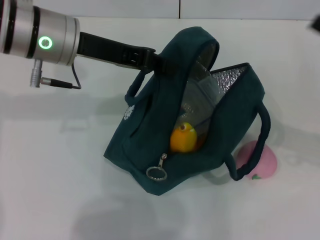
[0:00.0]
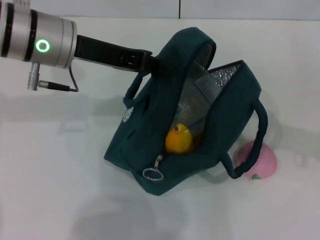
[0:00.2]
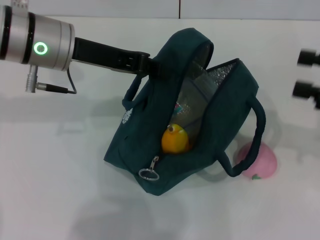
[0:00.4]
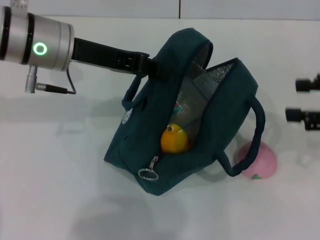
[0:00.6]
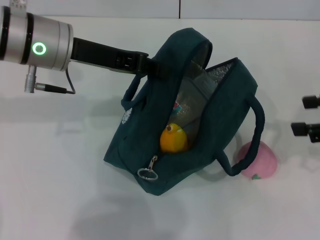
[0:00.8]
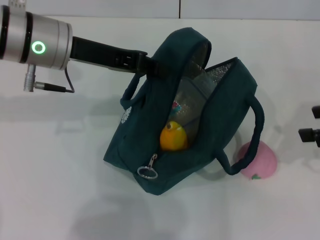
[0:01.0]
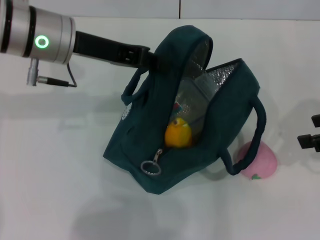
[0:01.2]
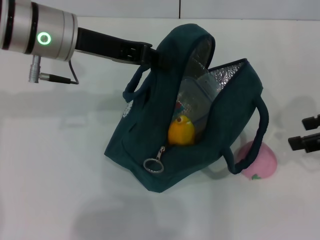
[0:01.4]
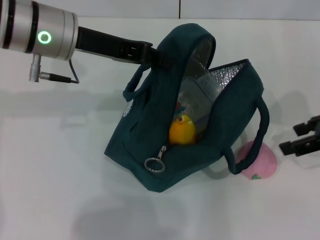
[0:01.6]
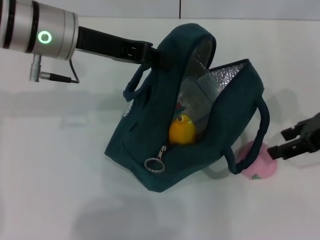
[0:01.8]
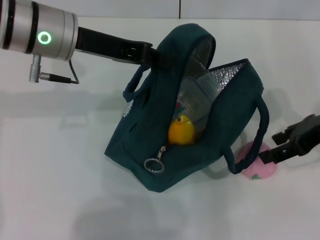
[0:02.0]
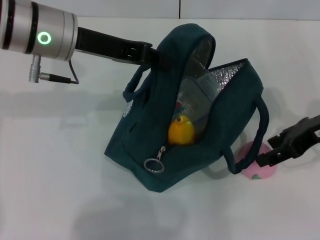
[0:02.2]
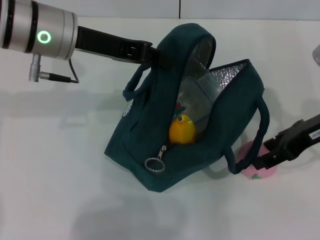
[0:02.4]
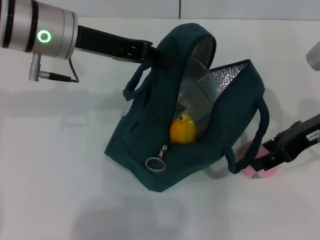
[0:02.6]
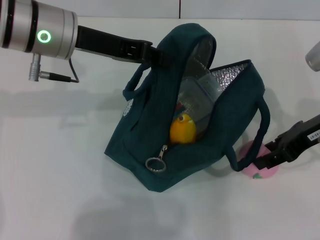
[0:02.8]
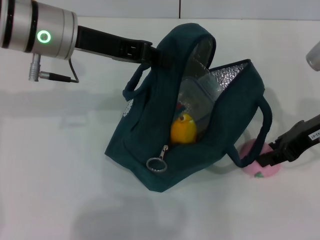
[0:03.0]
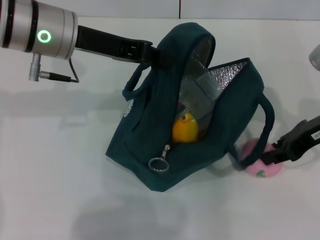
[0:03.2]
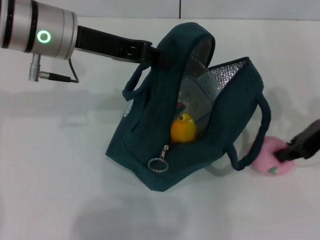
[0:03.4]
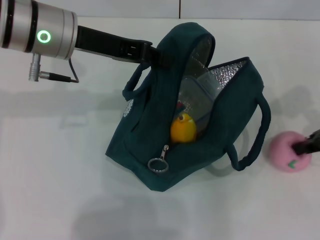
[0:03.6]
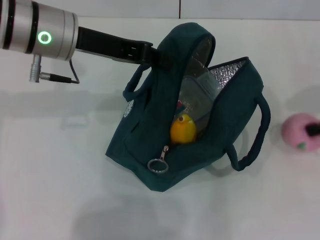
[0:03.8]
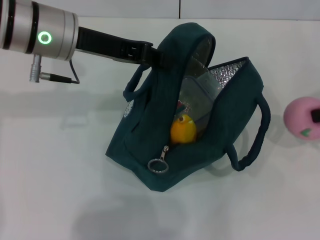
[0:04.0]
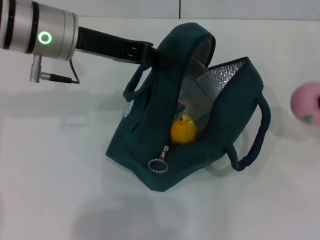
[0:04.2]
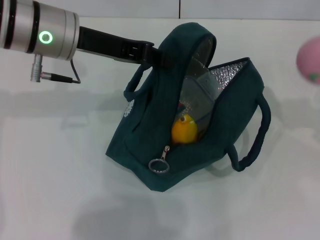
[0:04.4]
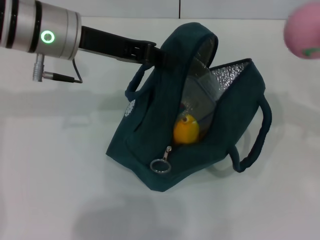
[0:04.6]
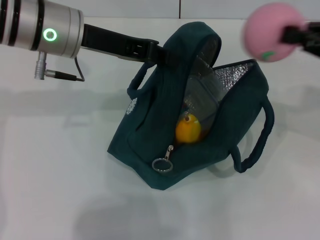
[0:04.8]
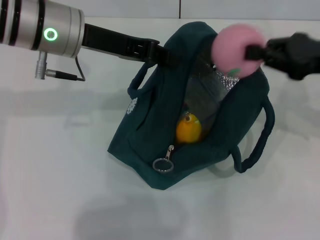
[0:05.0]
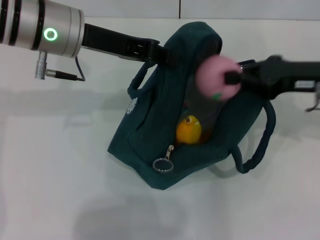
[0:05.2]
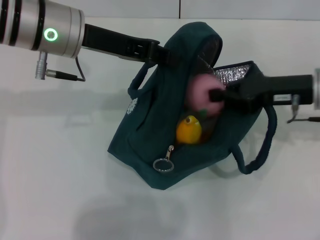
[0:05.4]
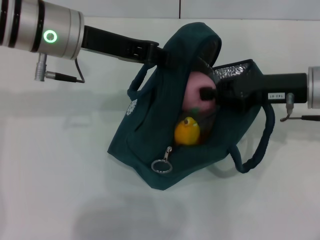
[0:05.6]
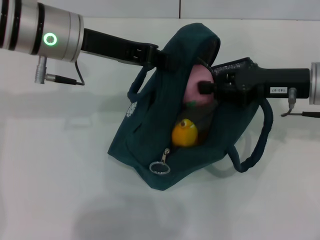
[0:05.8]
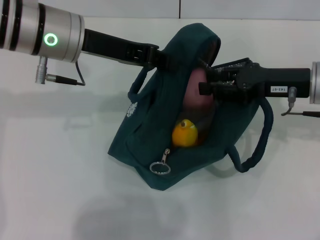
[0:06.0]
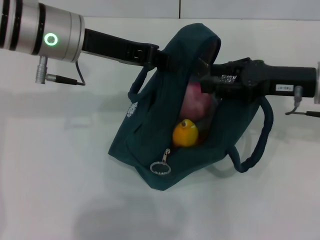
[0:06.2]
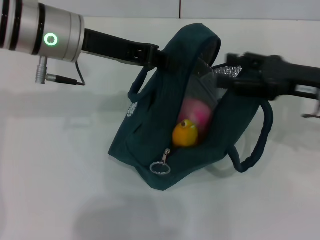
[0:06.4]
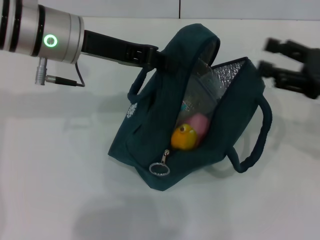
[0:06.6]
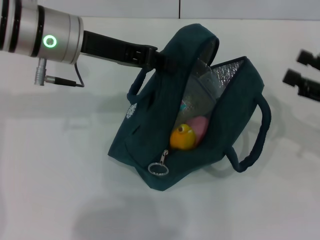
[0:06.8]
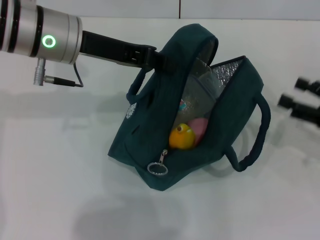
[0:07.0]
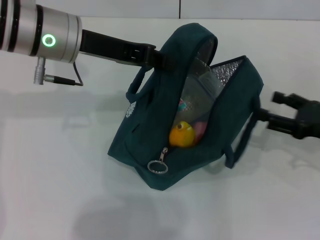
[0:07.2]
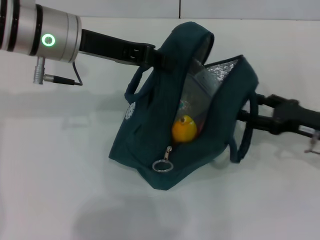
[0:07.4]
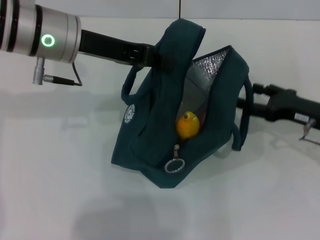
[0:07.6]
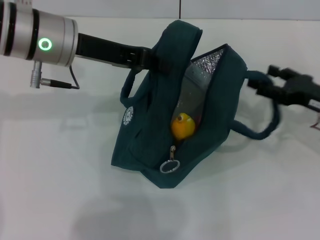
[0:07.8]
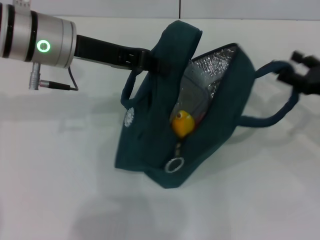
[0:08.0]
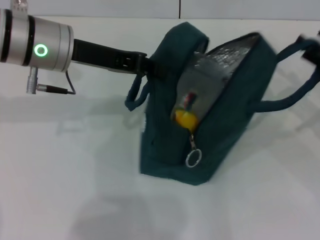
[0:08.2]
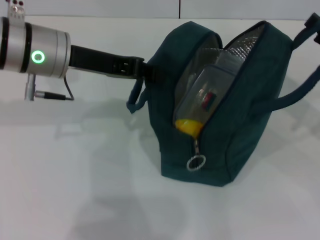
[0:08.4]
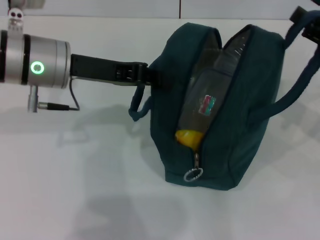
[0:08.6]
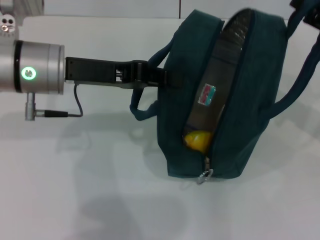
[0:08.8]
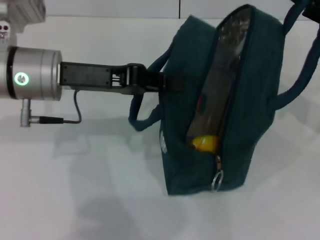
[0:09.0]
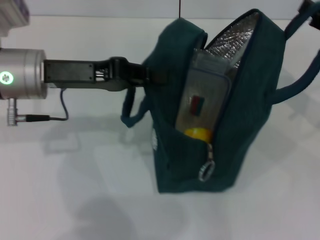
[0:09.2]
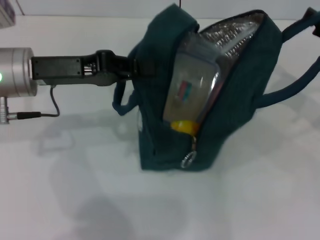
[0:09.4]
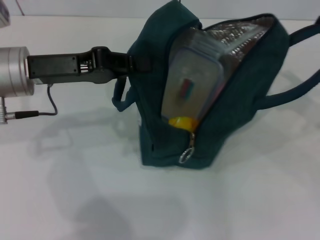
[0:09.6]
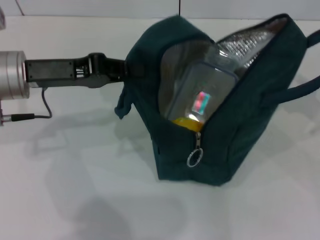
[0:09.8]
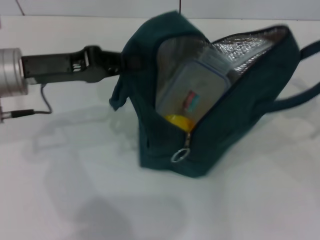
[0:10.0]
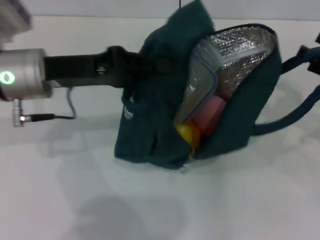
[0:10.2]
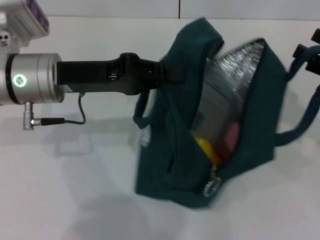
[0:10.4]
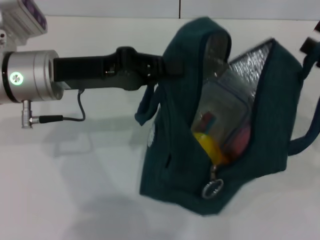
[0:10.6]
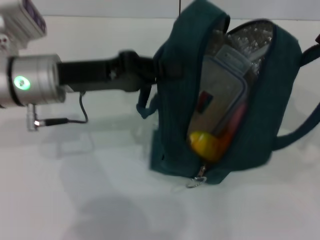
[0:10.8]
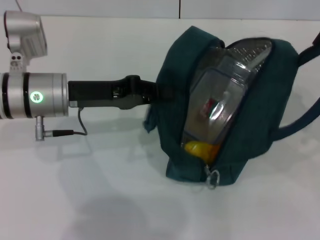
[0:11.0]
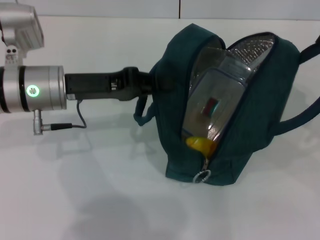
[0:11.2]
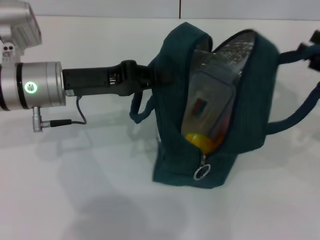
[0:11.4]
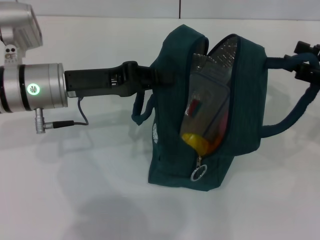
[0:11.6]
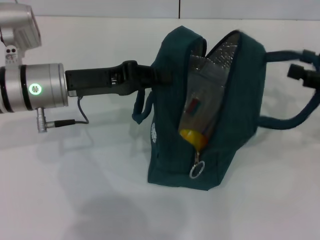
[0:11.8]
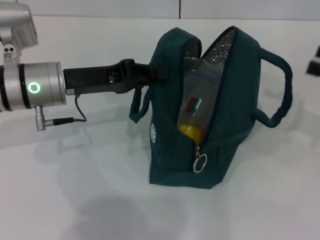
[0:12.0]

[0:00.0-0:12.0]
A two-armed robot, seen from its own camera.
Step, 0:00.0 to 0:03.0: Grab the peach with your right hand.
Step, 0:06.4 to 0:11.8: Hold the lunch bag with your right hand.
0:00.0 to 0:01.6: The right gripper changes place by approximately 5 cm.
0:01.6 to 0:03.0: The right gripper ends up roughly 5 cm from where it was.
0:03.0 to 0:04.4: The right gripper heads to the right, covering about 15 cm, and closes its fingers.
0:04.4 to 0:06.0: The right gripper heads to the left, downward and forward, covering approximately 15 cm.
0:06.0 to 0:07.6: The right gripper heads downward, covering about 10 cm, and opens up.
0:07.6 to 0:09.0: The left gripper shifts by about 5 cm, while the right gripper travels upward by some 10 cm.
0:09.0 to 0:10.4: The right gripper shifts by approximately 5 cm.

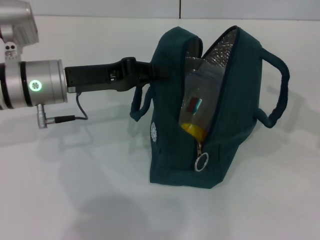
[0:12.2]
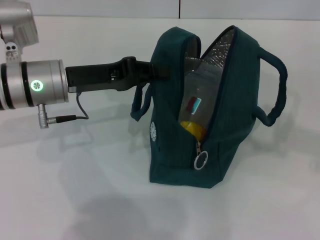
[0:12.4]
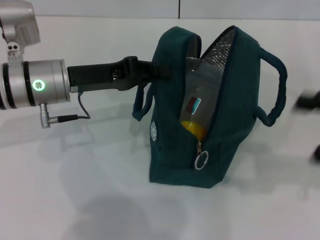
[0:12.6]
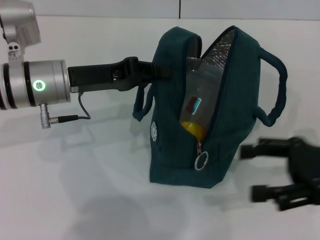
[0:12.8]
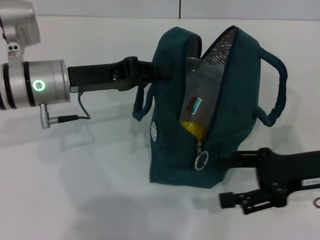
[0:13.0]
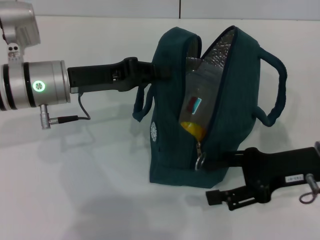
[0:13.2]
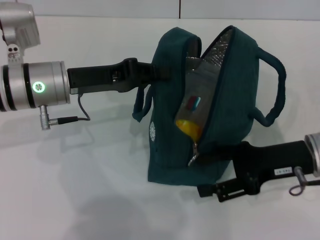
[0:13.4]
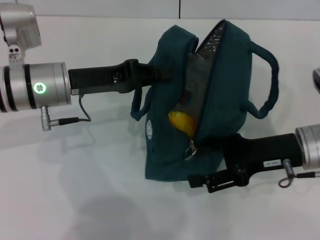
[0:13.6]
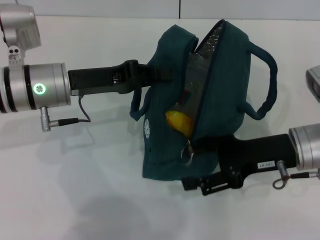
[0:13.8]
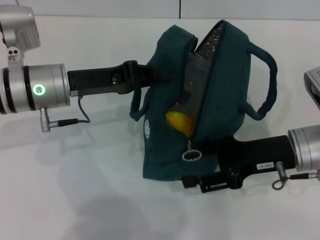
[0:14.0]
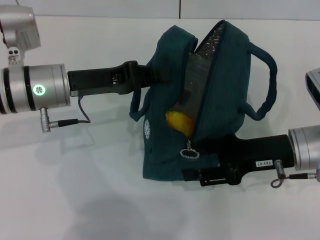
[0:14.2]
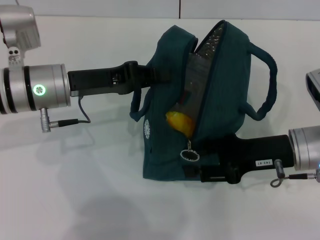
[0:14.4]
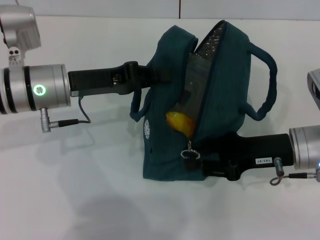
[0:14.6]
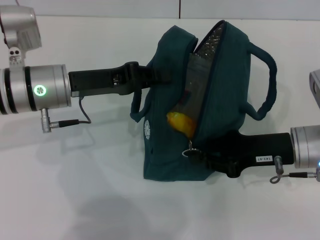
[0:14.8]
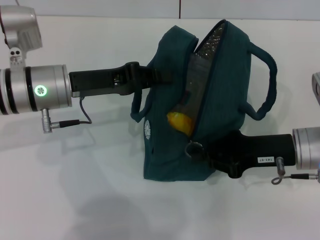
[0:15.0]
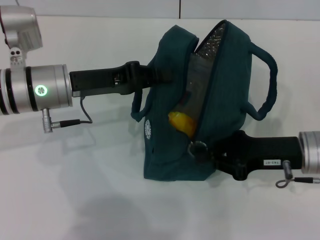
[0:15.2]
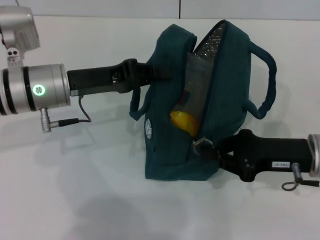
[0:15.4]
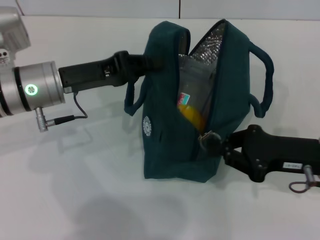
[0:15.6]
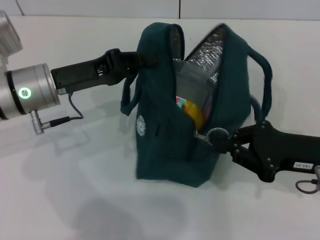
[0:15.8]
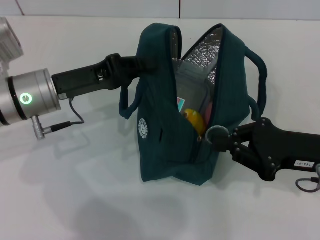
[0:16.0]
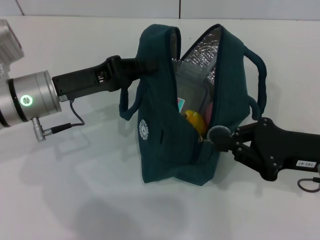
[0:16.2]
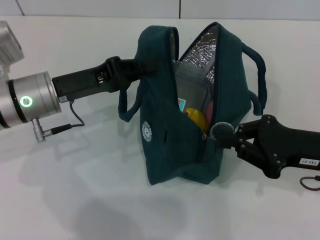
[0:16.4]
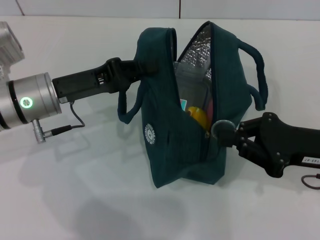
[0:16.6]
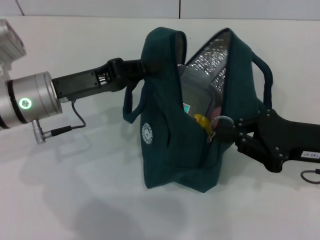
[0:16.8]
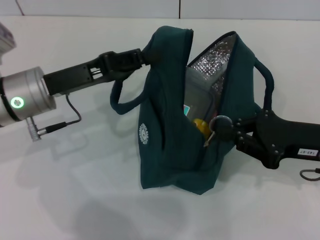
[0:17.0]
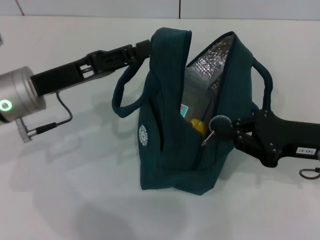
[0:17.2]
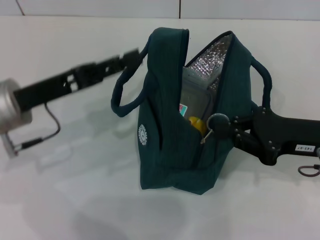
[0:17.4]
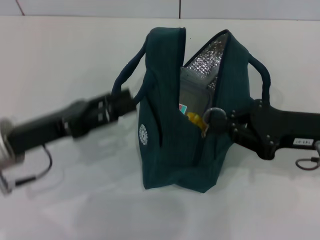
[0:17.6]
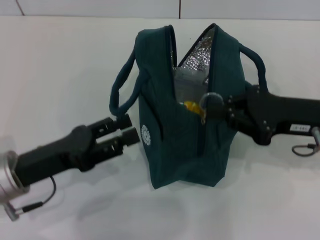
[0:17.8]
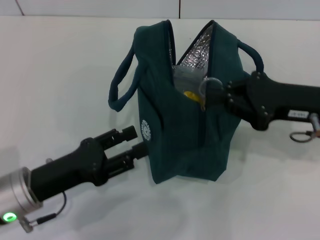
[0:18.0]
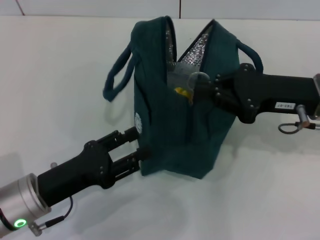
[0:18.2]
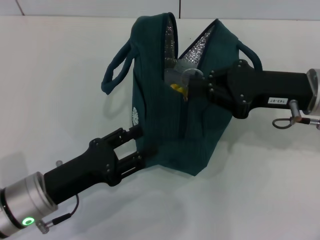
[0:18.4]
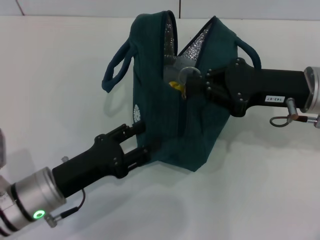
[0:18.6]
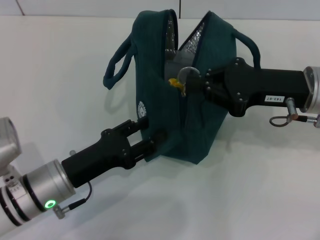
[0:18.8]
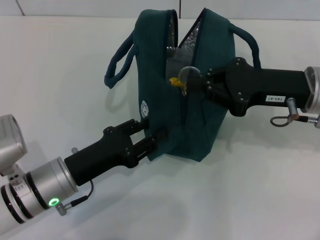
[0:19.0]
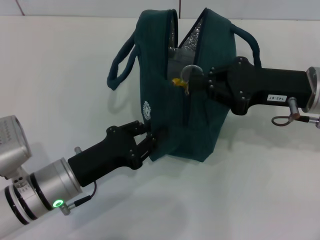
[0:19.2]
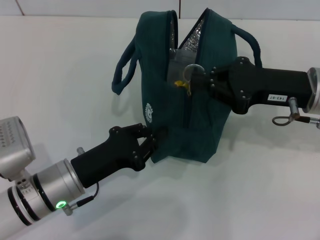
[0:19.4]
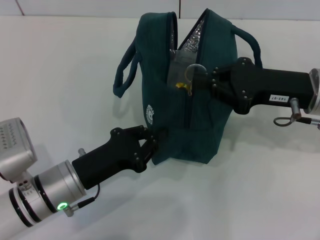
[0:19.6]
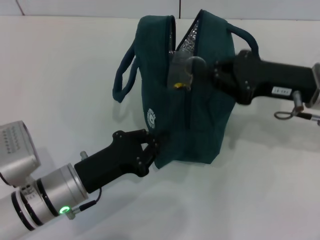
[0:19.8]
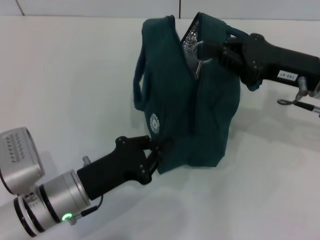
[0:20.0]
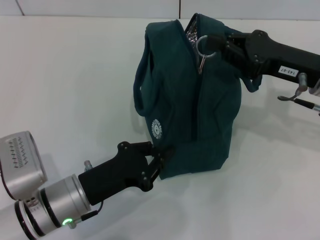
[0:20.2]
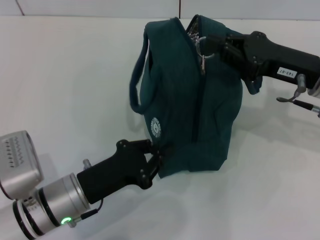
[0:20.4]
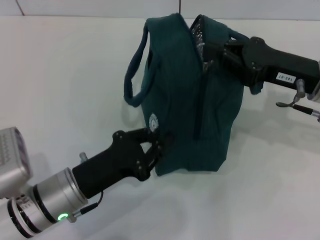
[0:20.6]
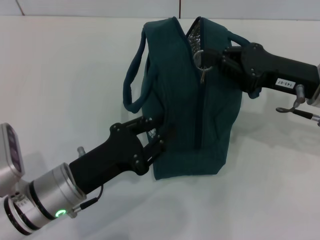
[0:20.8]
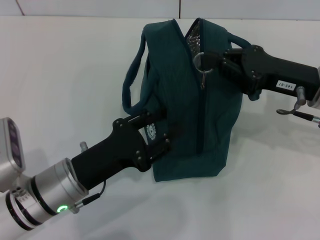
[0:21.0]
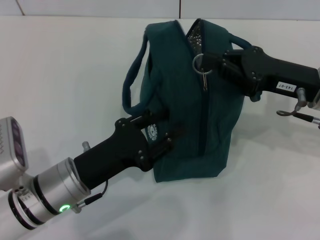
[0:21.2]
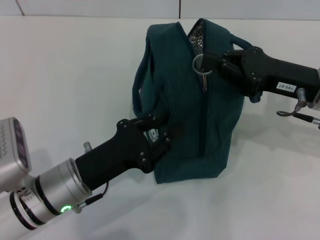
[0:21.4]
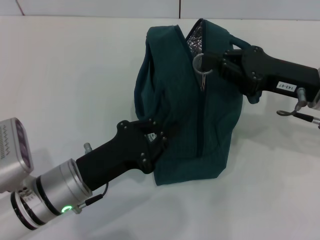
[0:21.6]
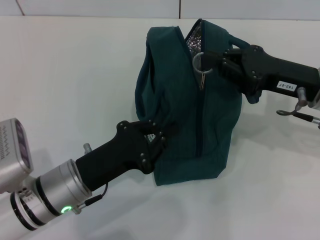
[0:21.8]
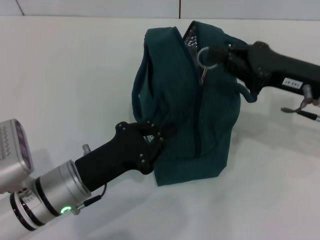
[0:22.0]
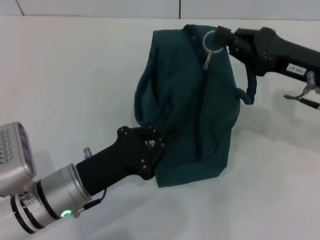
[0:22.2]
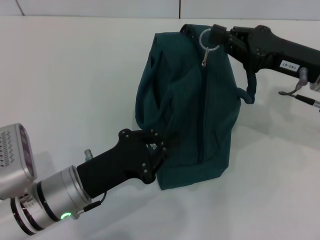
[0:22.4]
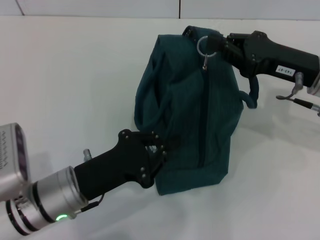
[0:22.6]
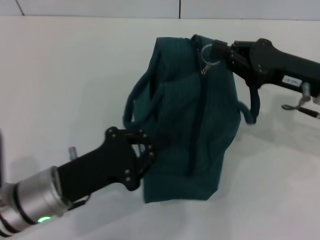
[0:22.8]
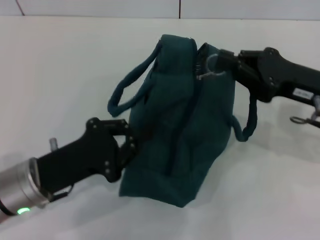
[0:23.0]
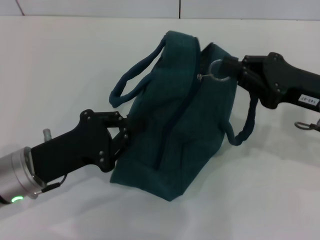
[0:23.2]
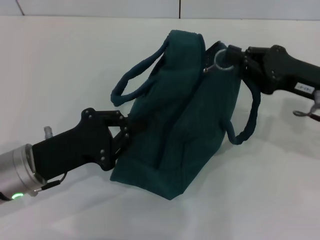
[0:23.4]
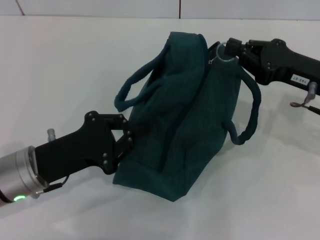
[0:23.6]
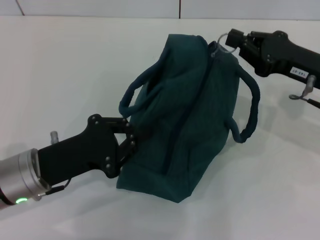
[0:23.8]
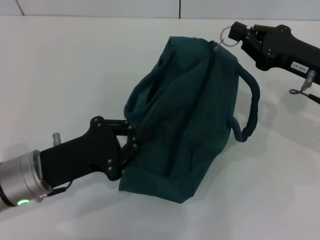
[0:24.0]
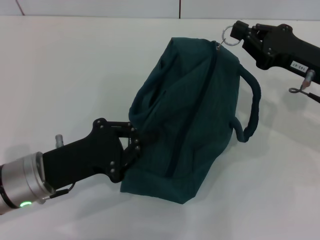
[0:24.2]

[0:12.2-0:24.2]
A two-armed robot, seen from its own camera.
Step, 0:12.2 to 0:17.0: Hold the lunch bag with your left hand.
0:12.2 to 0:13.8: The right gripper is displaced to the left and downward by roughly 20 cm.
0:13.8 to 0:15.2: The right gripper closes its fingers.
0:16.6 to 0:18.2: The left gripper travels backward and downward by approximately 15 cm, and opens its fingers, while the right gripper heads forward, covering roughly 5 cm.
0:18.2 to 0:19.8: The left gripper ends up roughly 5 cm from where it was, and closes its fingers.
0:19.8 to 0:21.2: The grippers stay close to where they were, moving slightly.
0:21.2 to 0:22.6: The left gripper closes its fingers.
